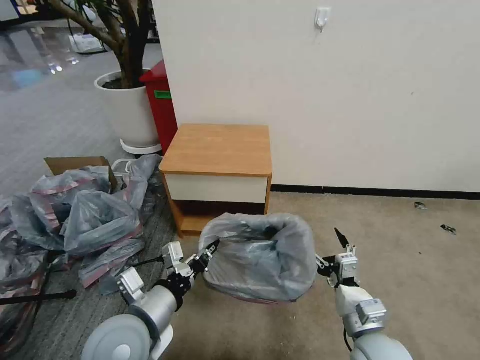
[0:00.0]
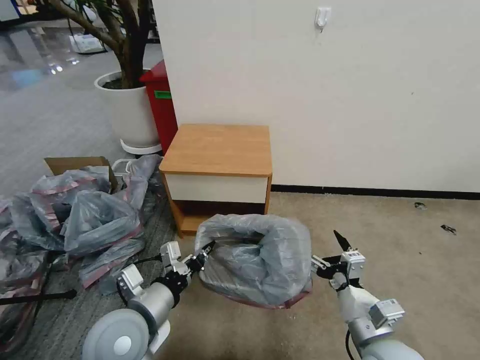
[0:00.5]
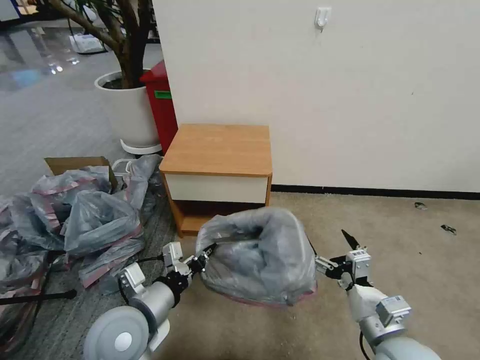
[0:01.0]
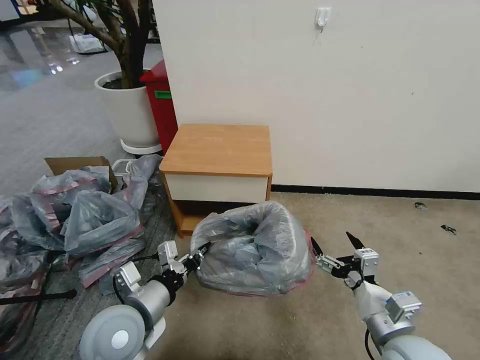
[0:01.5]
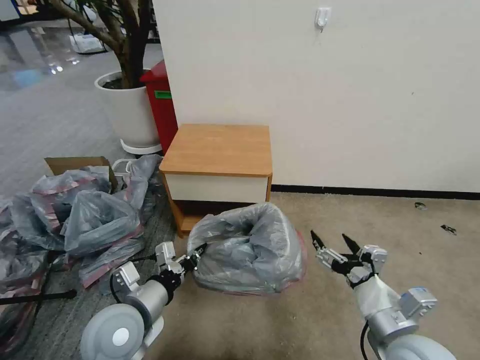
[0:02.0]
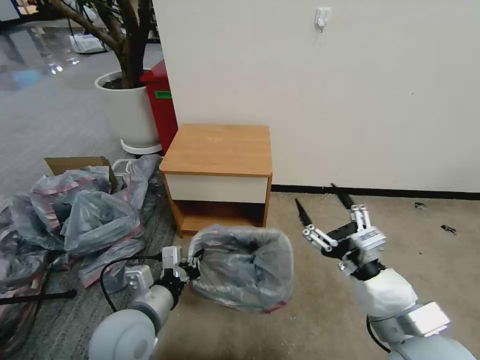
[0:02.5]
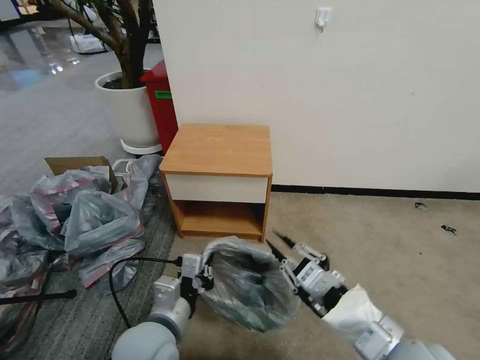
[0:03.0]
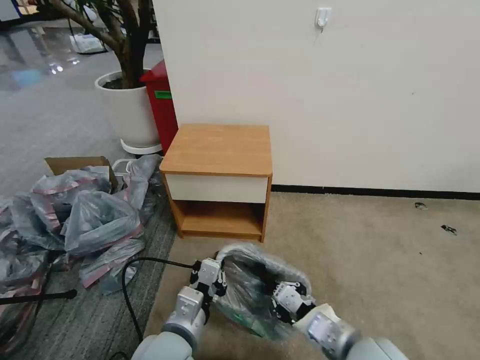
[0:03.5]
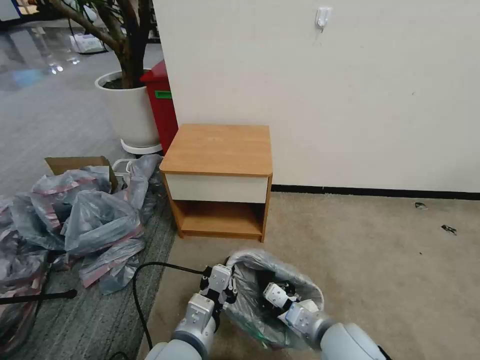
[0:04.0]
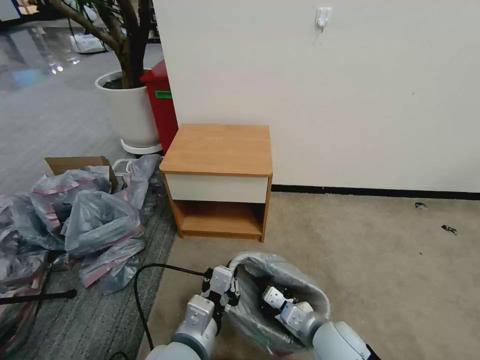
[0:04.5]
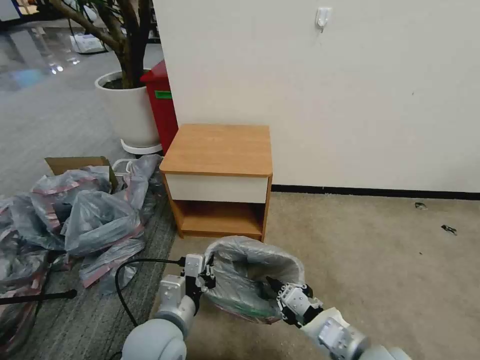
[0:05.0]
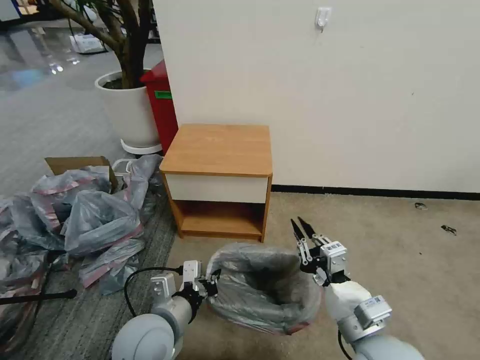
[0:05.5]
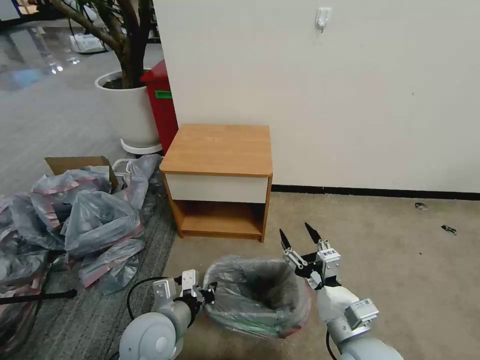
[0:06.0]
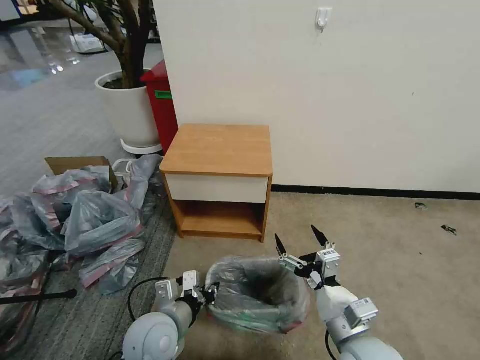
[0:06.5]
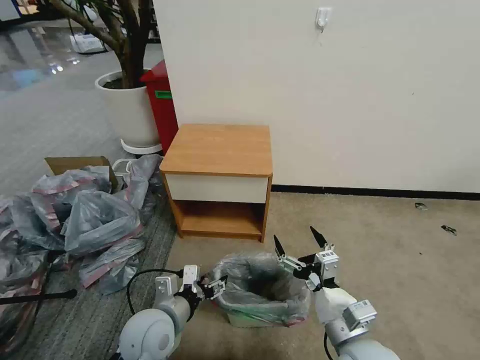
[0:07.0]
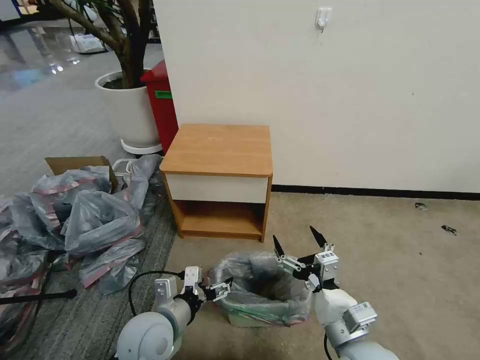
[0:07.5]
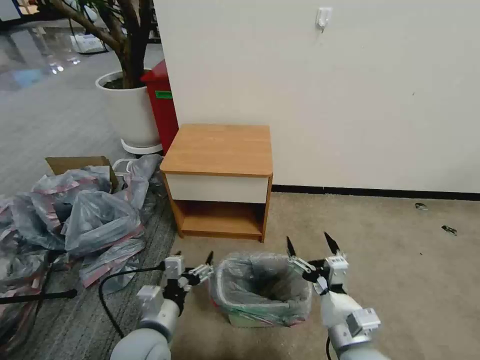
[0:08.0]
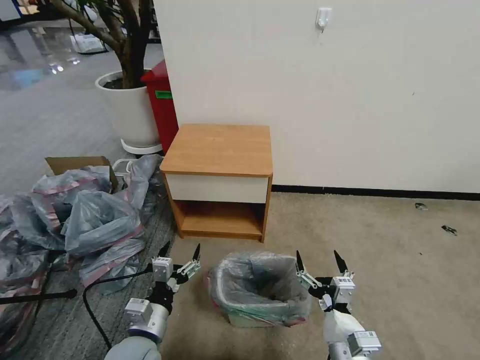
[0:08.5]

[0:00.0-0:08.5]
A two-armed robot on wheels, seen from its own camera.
Task of the whole recording: Pick up the garbage bag from the table and place it over the trash can.
0:00.0 to 0:02.0: The right gripper travels upward by approximately 10 cm.
0:02.0 to 0:04.0: The right gripper heads to the left and downward, covering roughly 10 cm, and closes up. Meanwhile the left gripper moves to the right and backward, some 10 cm.
0:04.0 to 0:06.5: The left gripper travels to the left and forward by some 10 cm, while the right gripper moves about 5 cm upward and comes back, and opens its fingers.
0:06.5 to 0:08.5: The right gripper goes roughly 5 cm downward; the left gripper moves roughly 5 cm, and opens up.

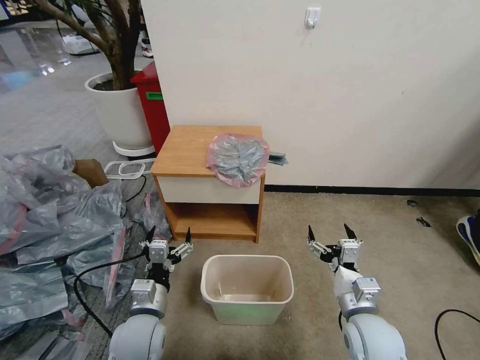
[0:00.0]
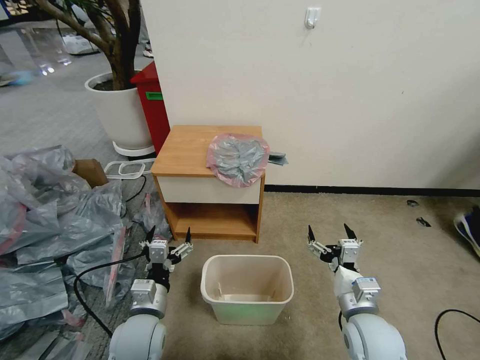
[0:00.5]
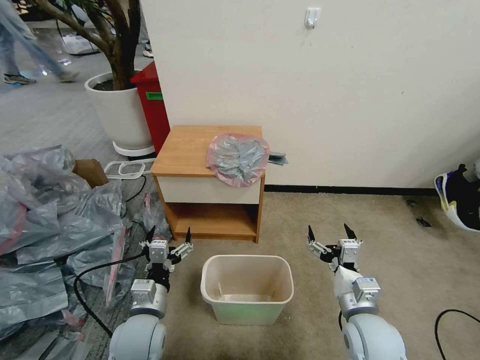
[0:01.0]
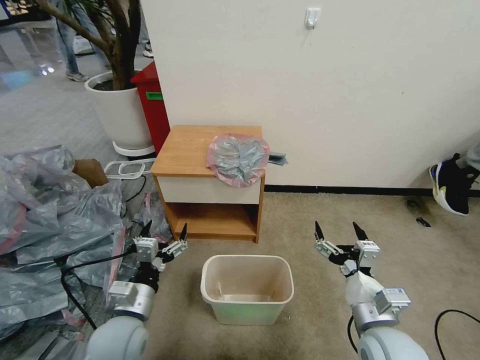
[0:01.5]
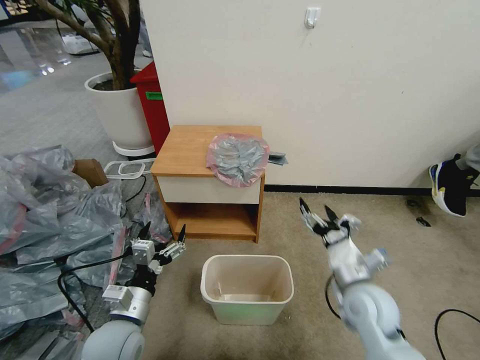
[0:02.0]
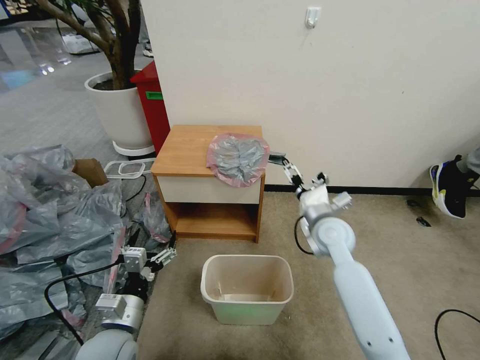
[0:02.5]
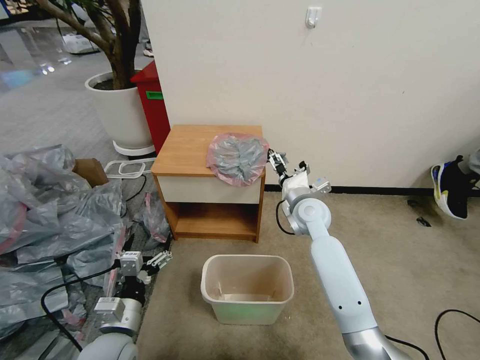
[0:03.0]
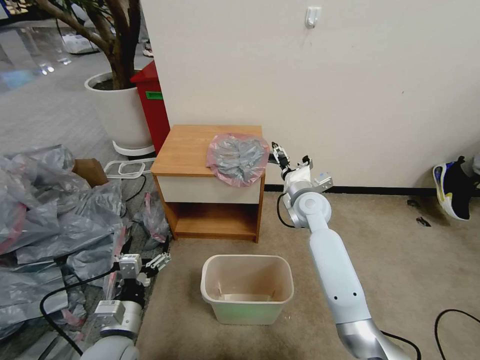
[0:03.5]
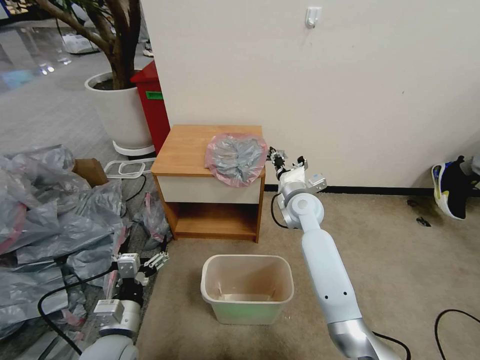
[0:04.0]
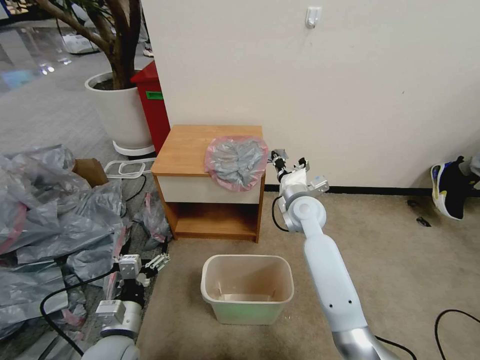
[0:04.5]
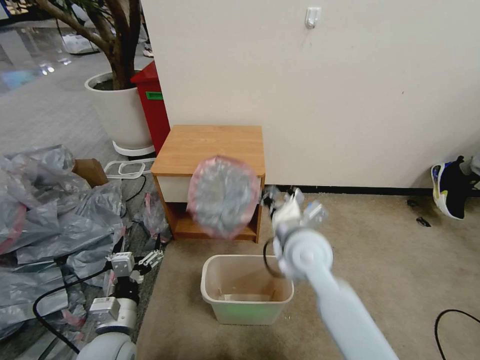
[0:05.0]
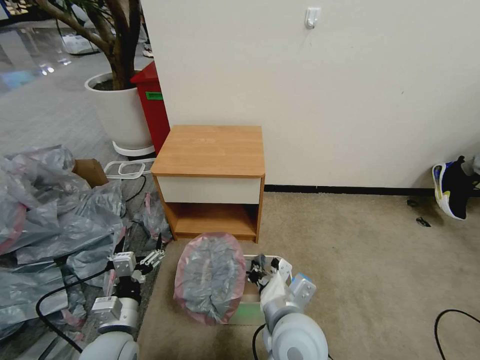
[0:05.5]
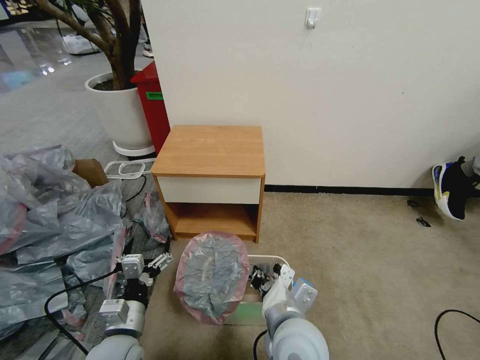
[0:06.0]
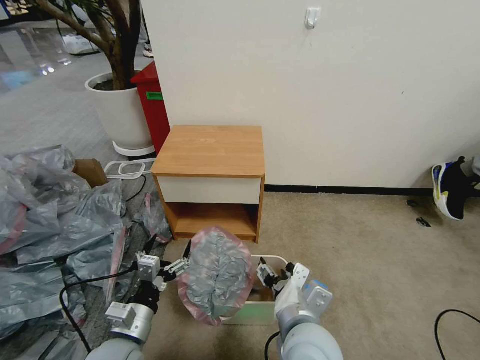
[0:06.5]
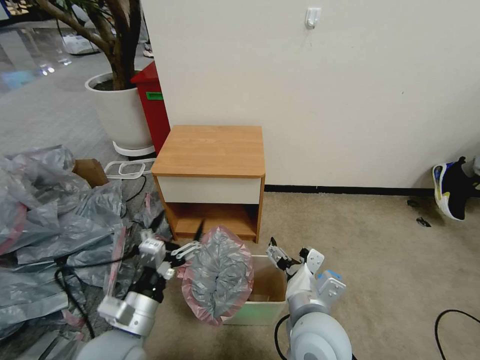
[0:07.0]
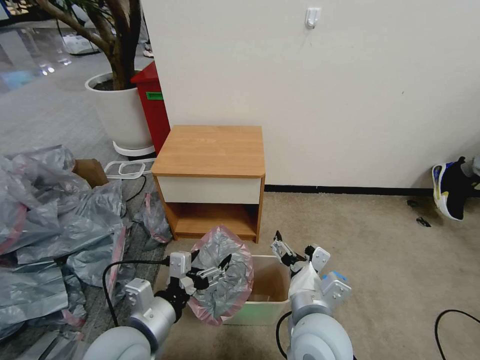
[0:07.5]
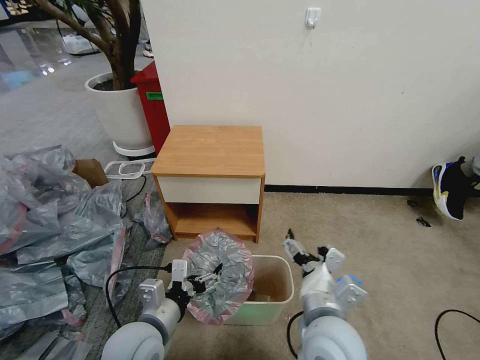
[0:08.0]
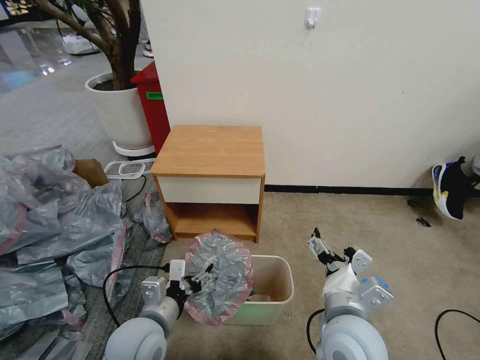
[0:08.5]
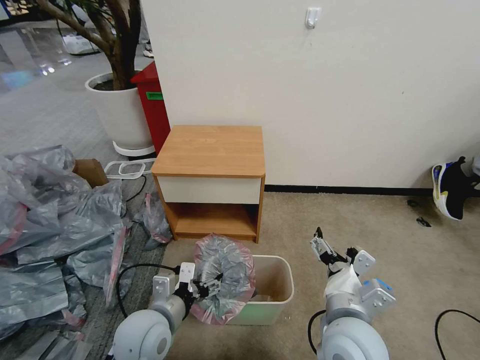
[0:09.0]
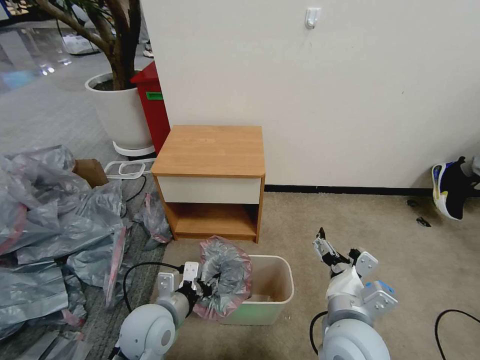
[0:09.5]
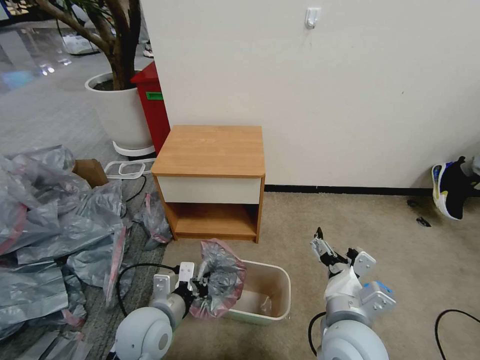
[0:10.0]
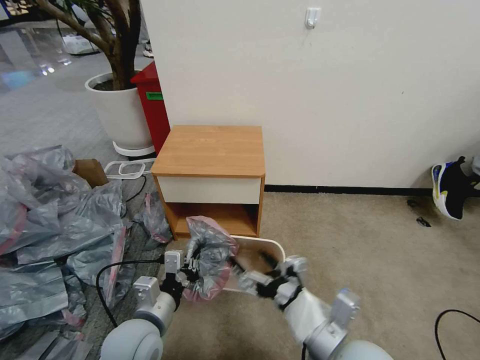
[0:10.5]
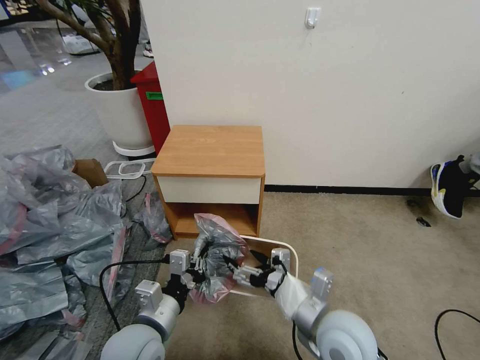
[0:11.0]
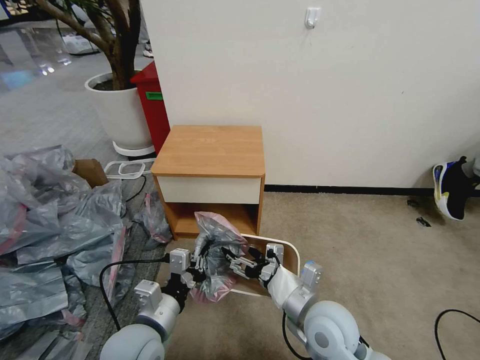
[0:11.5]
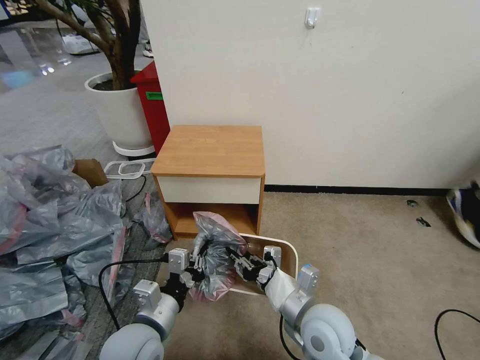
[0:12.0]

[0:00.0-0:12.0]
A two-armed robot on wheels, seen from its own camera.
Task of the whole recording: Pick up the garbage bag from the table and place it over the trash can.
0:02.0 to 0:04.0: The right gripper shifts some 25 cm forward and to the left, and closes its fingers.
0:04.0 to 0:06.0: The right gripper travels backward by roughly 30 cm.
0:06.0 to 0:08.0: The left gripper goes some 10 cm upward and to the right. The right gripper ends up roughly 5 cm from where it was, and opens up.
0:08.0 to 0:10.0: The left gripper closes up.
0:10.0 to 0:12.0: The right gripper ends up roughly 5 cm from where it was, and closes up.

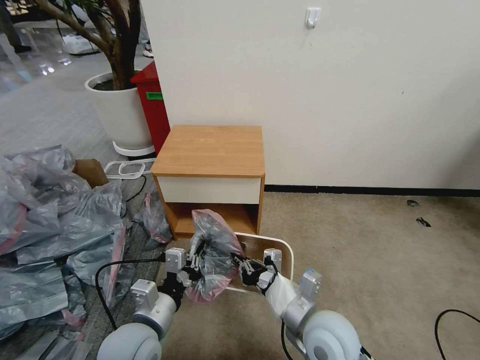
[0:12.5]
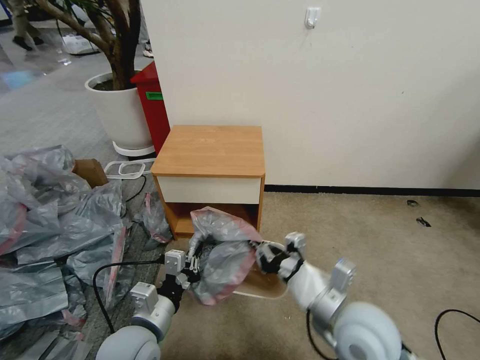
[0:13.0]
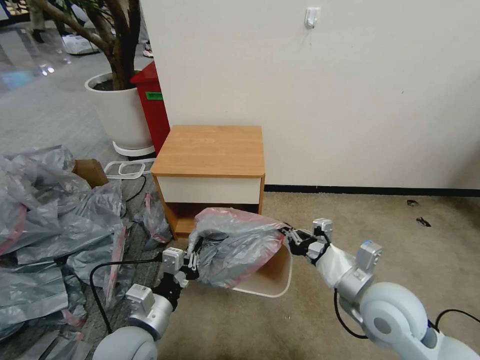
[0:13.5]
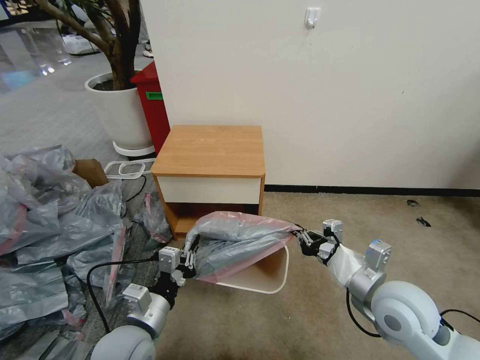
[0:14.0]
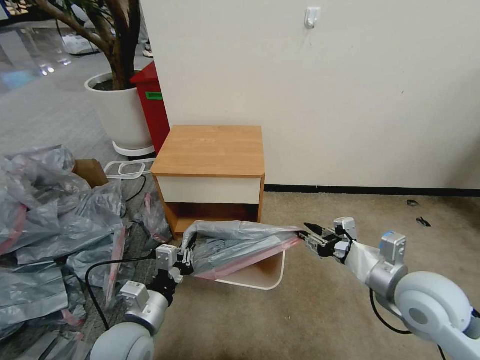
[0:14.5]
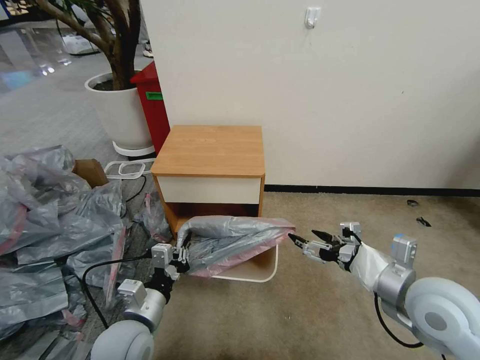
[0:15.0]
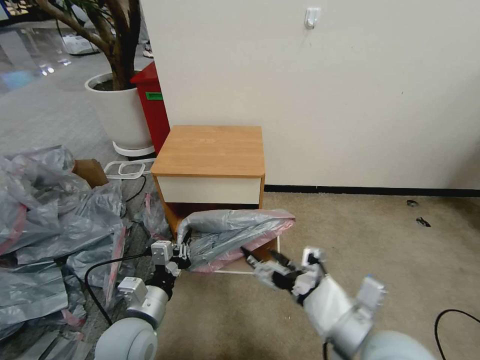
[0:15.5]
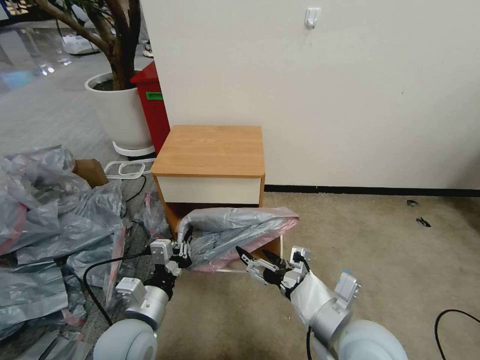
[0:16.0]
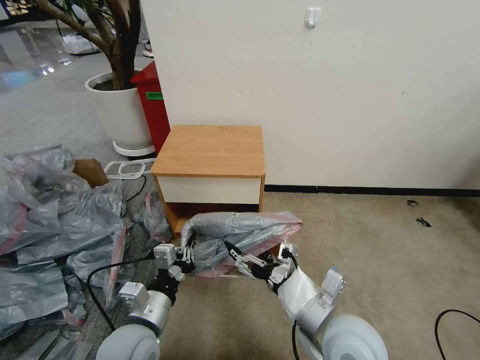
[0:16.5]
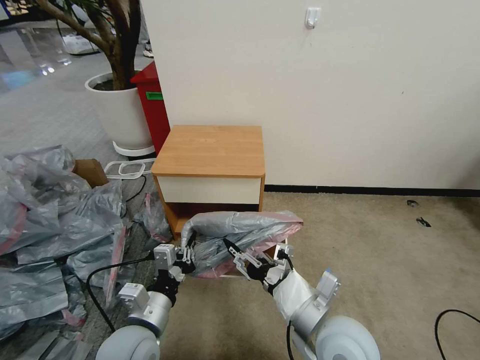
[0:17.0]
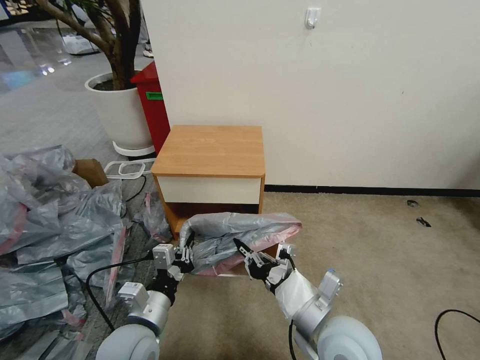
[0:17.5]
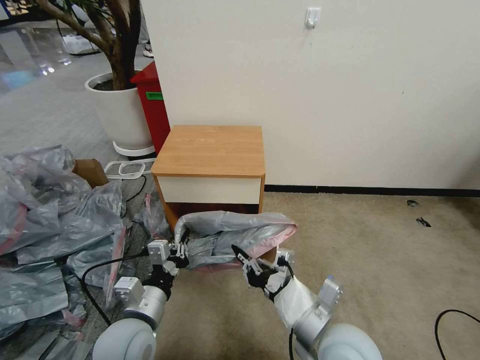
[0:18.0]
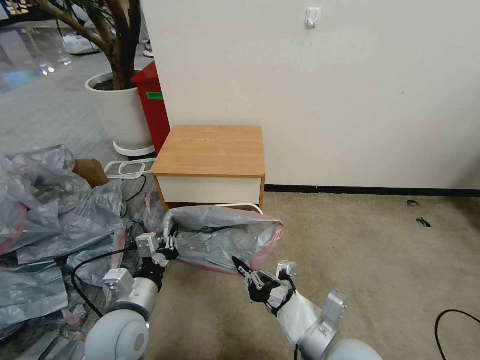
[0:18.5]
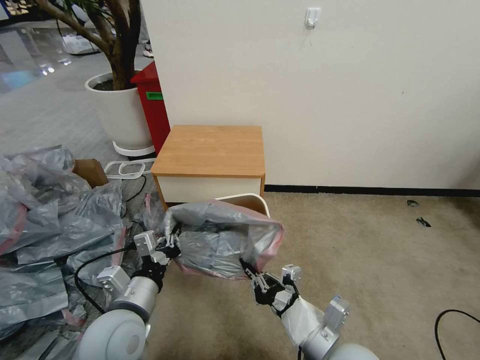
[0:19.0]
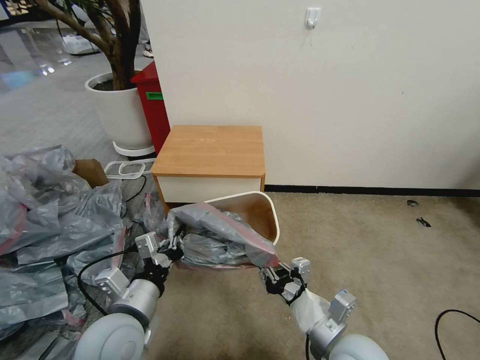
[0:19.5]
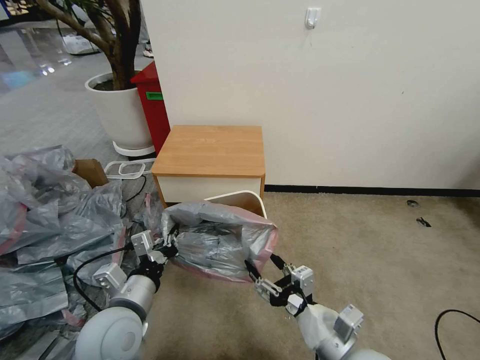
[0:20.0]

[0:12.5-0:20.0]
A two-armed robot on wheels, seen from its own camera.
Task of the whole recording: Pick up the garbage bag from the table and place it over the trash can.
0:12.5 to 0:14.5: The right gripper moves to the right and upward, about 20 cm, and opens its fingers.
0:14.5 to 0:16.5: The right gripper goes about 15 cm to the left and backward, and opens up.
0:16.5 to 0:18.0: The right gripper closes its fingers.
0:18.0 to 0:20.0: The right gripper ends up some 5 cm from where it was, and opens up.
